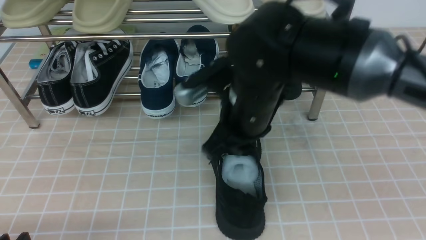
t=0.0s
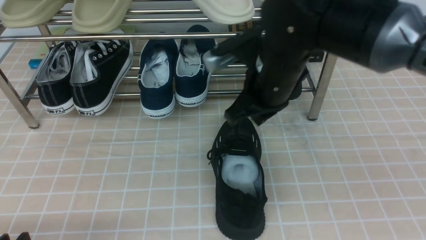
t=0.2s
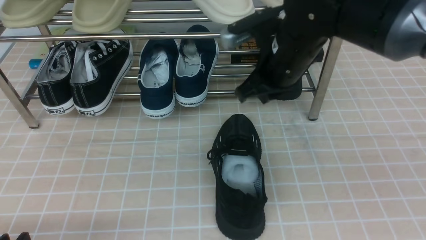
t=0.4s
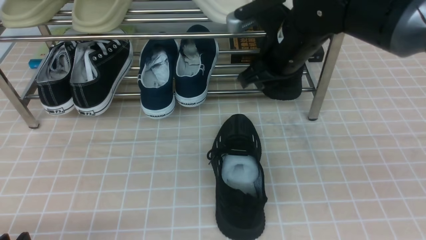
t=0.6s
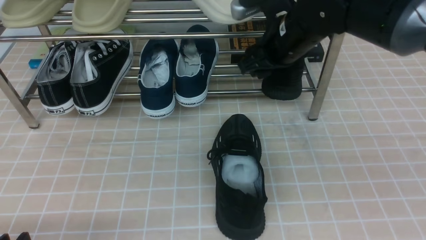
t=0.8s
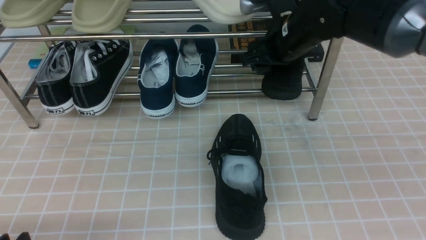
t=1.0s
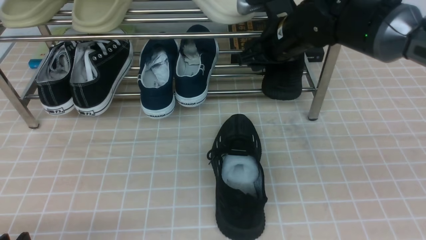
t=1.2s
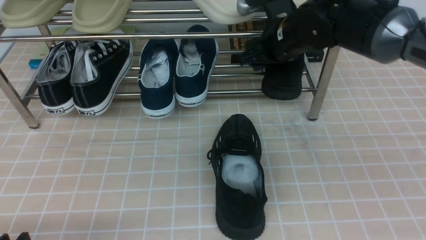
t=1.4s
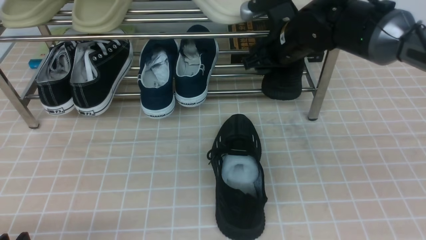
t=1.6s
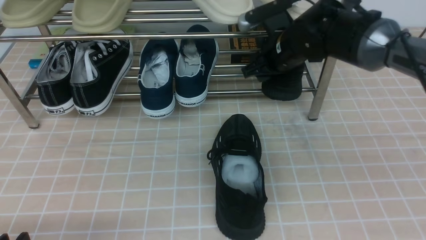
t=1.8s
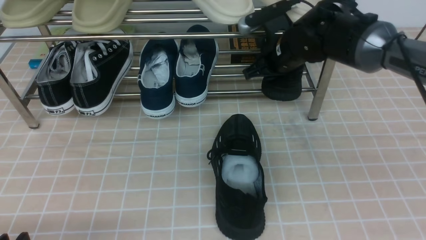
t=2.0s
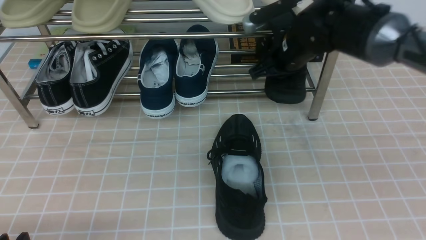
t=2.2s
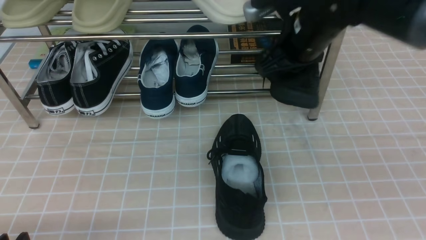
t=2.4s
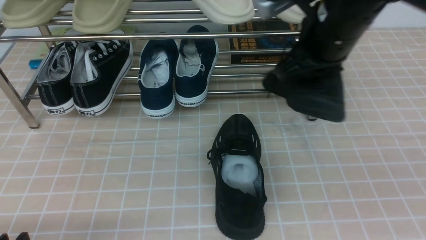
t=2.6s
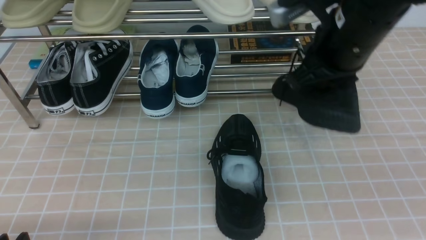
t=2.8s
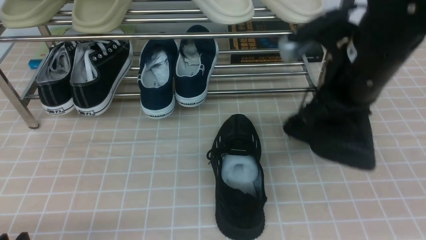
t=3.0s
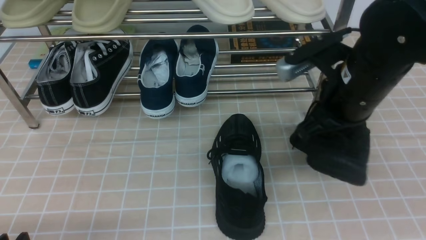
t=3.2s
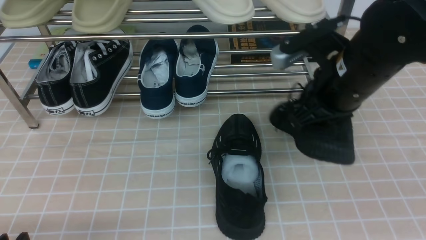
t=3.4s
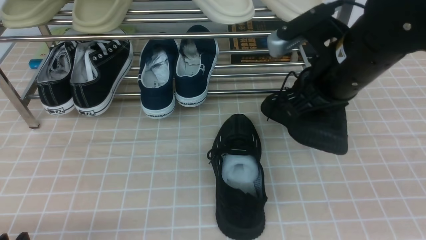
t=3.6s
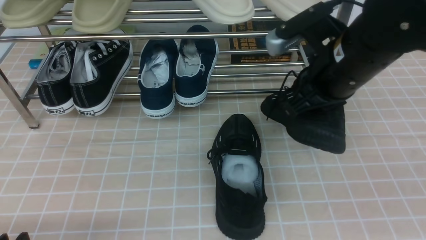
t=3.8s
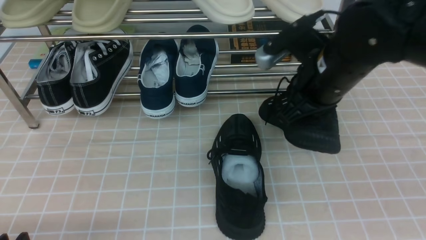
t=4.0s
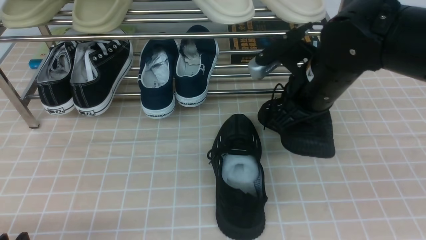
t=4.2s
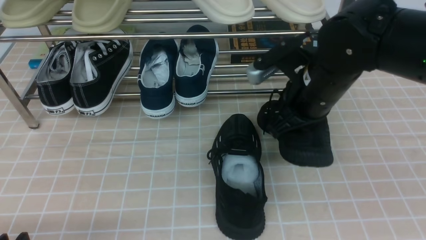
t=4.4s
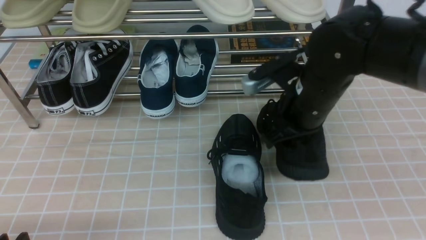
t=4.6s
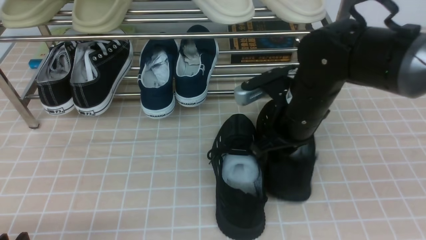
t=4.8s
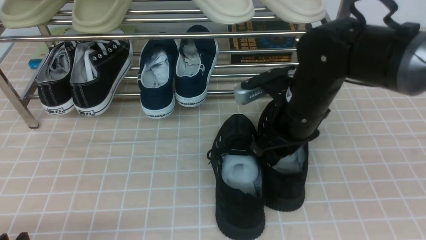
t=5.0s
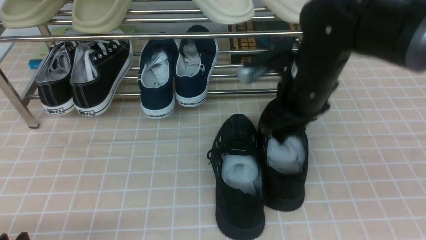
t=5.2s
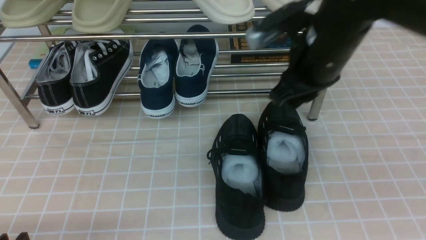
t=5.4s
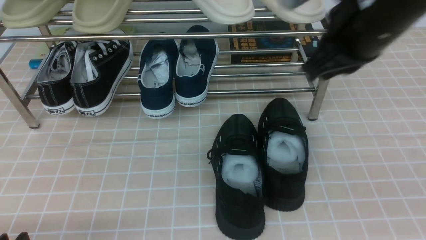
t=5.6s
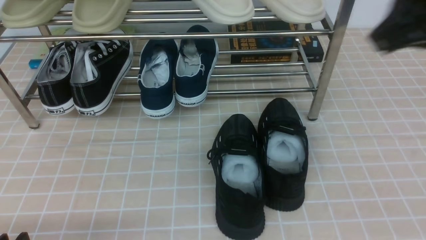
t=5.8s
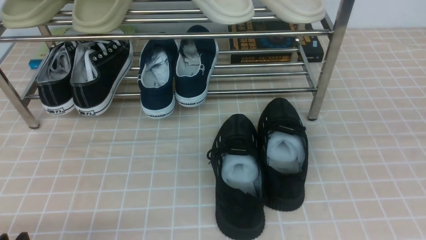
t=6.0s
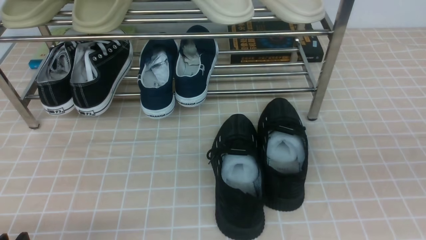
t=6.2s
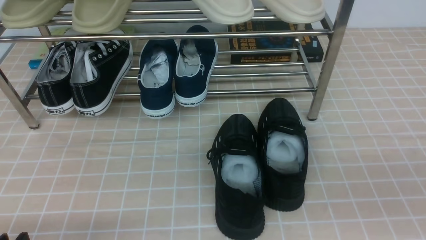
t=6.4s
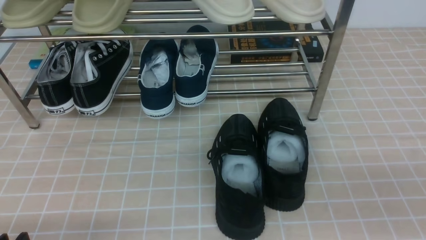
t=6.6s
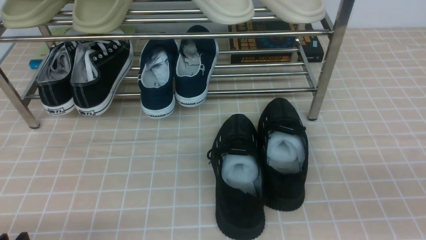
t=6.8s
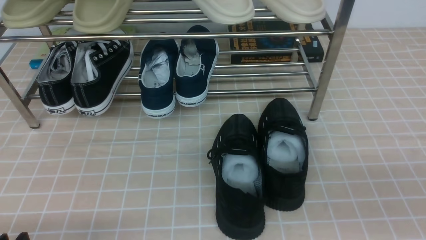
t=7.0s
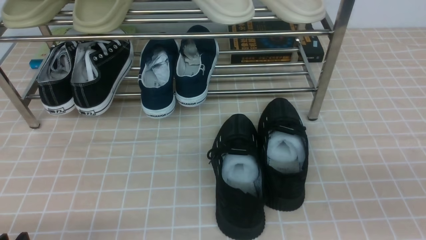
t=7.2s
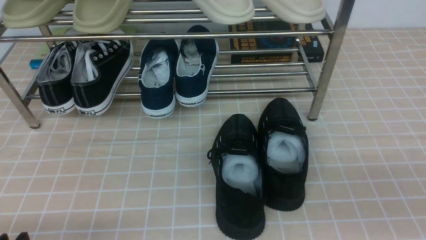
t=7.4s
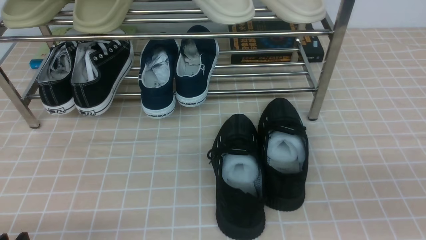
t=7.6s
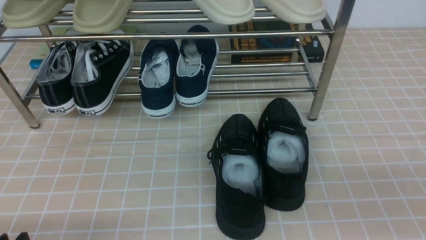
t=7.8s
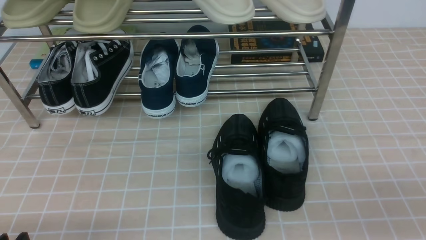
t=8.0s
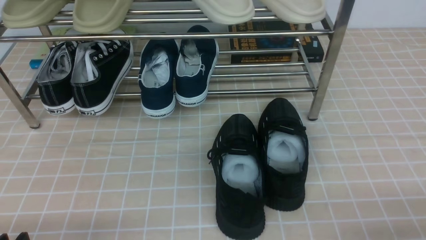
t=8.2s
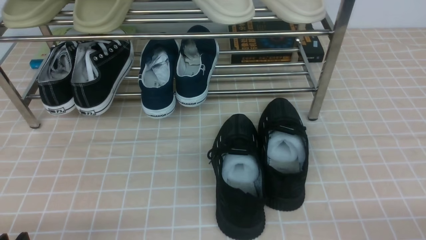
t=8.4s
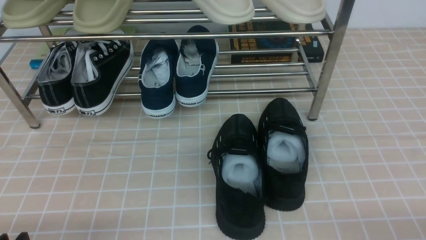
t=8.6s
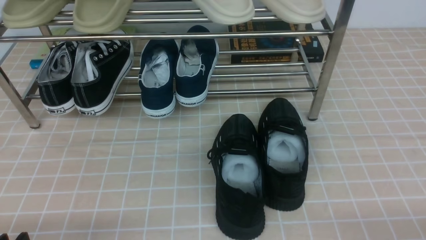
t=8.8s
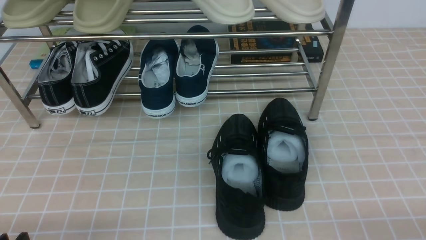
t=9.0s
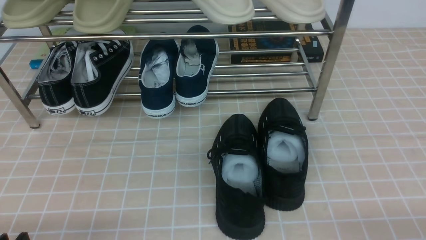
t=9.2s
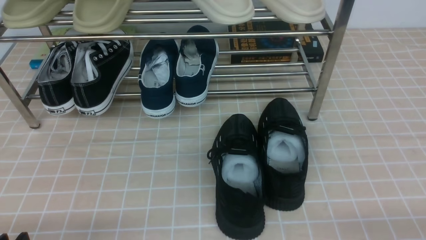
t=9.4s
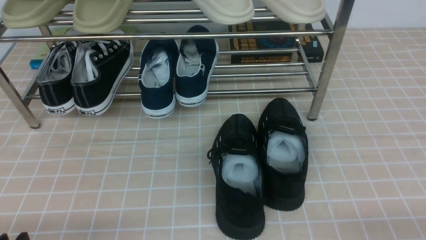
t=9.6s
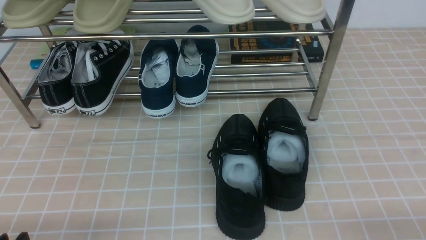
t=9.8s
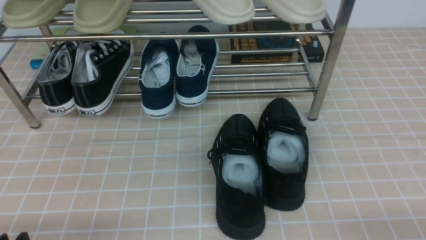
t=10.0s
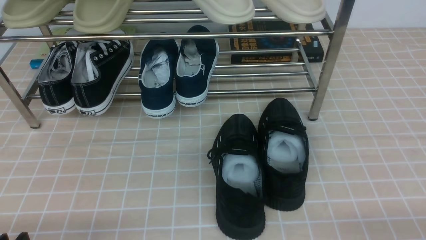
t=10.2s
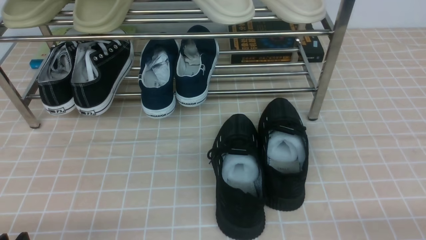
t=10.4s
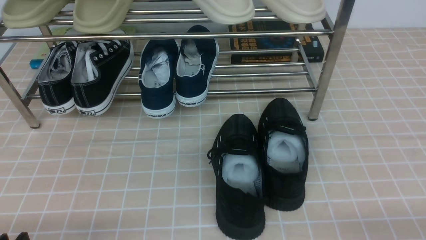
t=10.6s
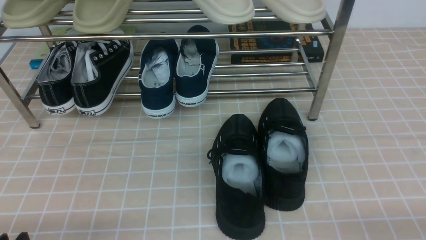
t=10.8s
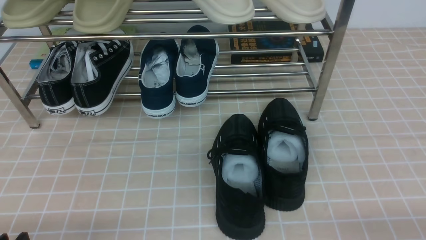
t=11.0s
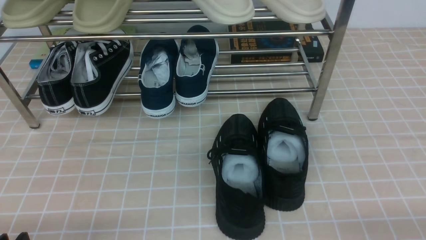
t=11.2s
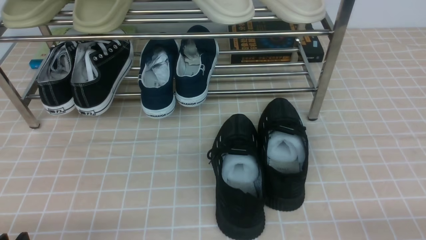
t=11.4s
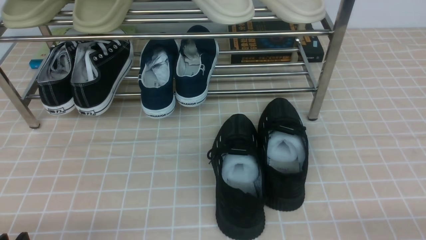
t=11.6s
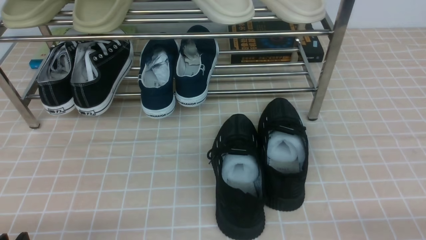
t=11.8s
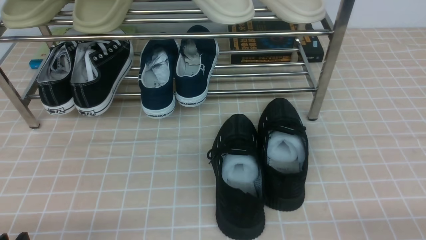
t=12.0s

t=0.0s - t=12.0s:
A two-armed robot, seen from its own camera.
Step, t=0.0s - t=1.8s: use the right arm to clamp a shoe on the right side of the shoe rack.
Step, t=2.0s - t=5.2s: use the right arm to take out the clamped shoe from the shoe rack and put it down.
t=0.0s - t=1.6s: The right gripper travels forward and to the right by approximately 15 cm, and opens its fingers.
t=1.6s - t=3.0s: The right gripper goes about 15 cm backward and upward, and closes.
t=3.0s - t=4.4s: The right gripper travels downward by some 5 cm.
t=4.4s - t=6.0s: The right gripper moves upward, backward and to the right, about 25 cm, and opens, then closes once more.
t=6.0s - t=7.6s: The right gripper moves downward and backward, roughly 20 cm.
t=7.6s - t=9.0s: The right gripper travels downward by approximately 15 cm.
t=10.4s - t=12.0s: Both grippers stay put.

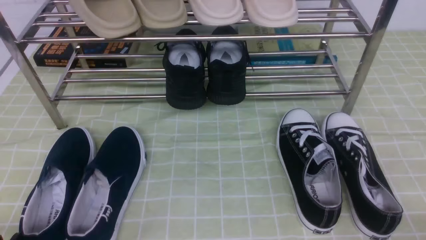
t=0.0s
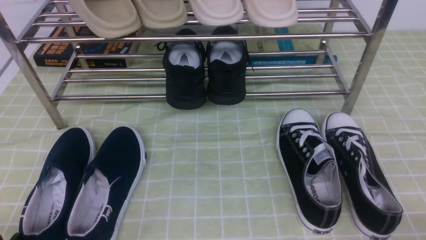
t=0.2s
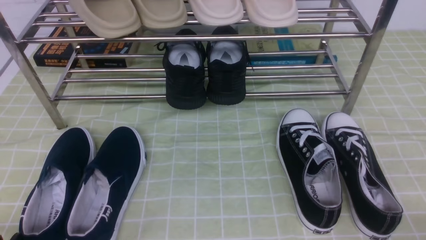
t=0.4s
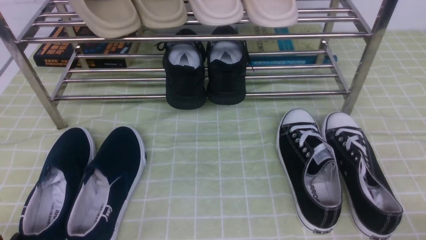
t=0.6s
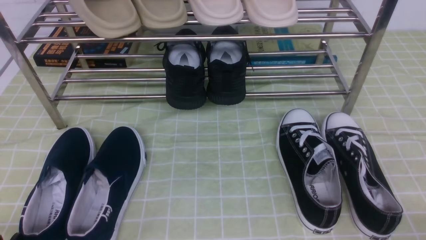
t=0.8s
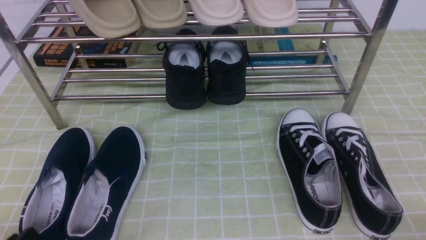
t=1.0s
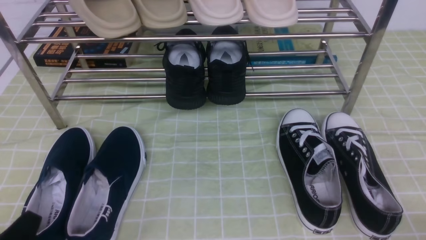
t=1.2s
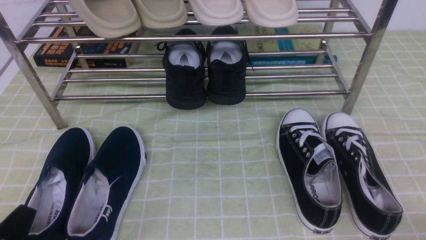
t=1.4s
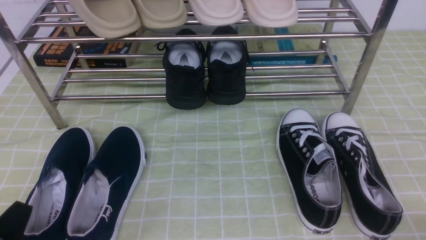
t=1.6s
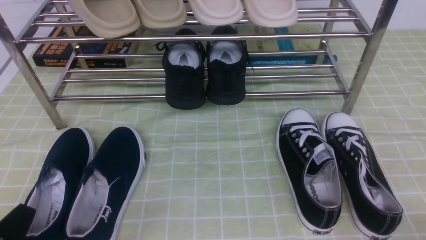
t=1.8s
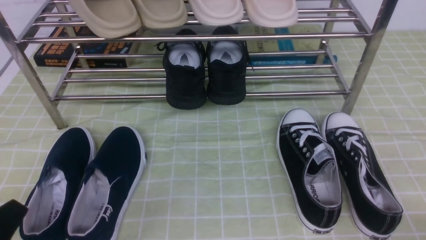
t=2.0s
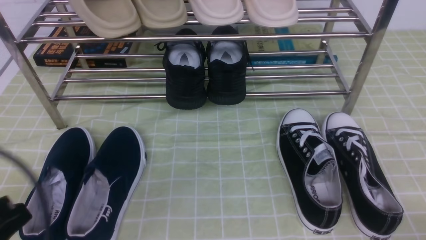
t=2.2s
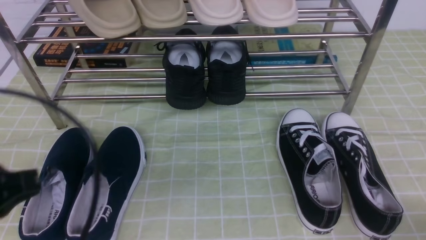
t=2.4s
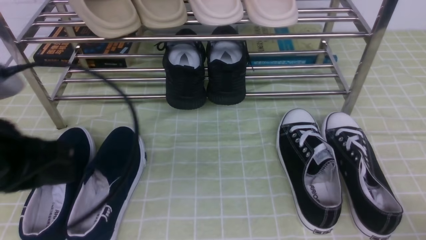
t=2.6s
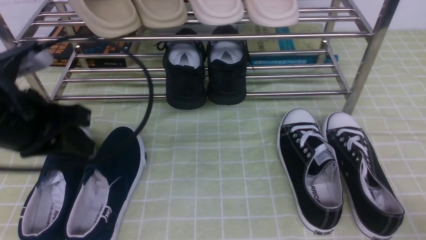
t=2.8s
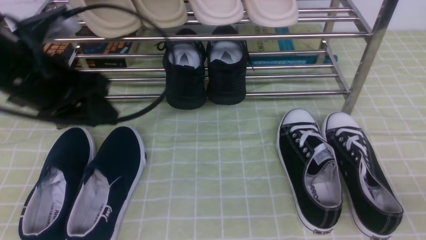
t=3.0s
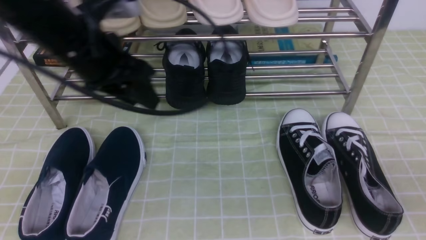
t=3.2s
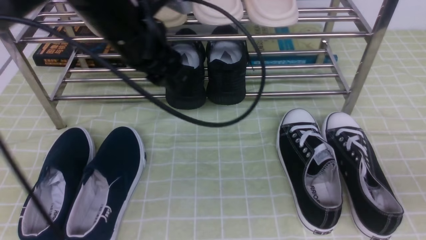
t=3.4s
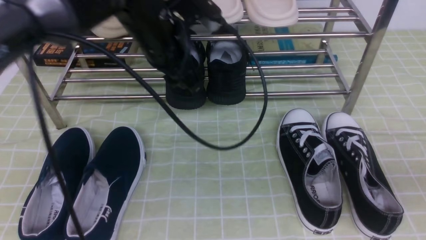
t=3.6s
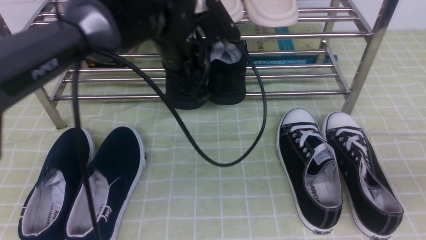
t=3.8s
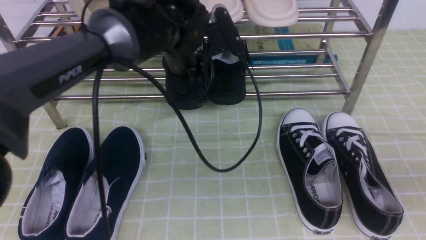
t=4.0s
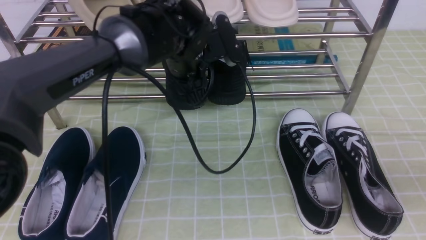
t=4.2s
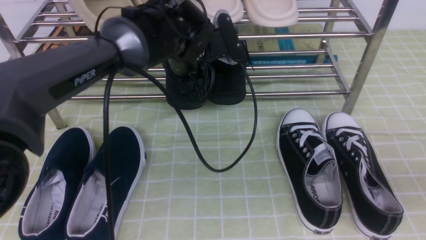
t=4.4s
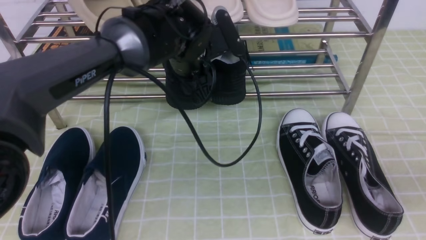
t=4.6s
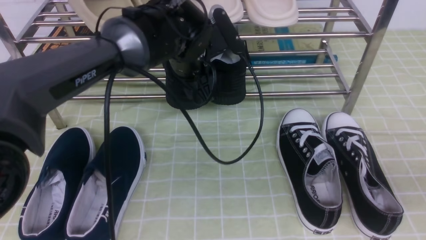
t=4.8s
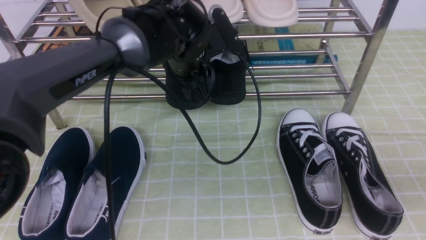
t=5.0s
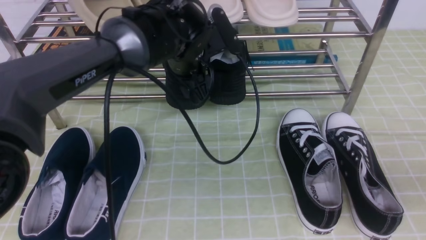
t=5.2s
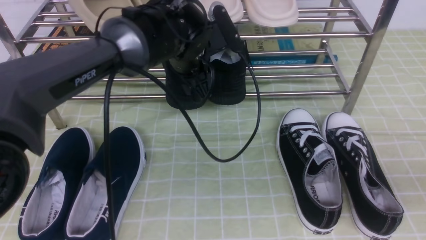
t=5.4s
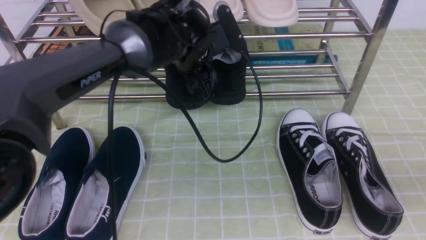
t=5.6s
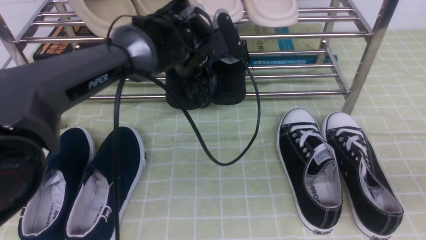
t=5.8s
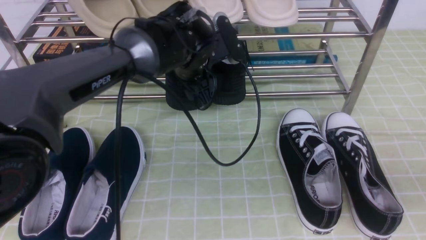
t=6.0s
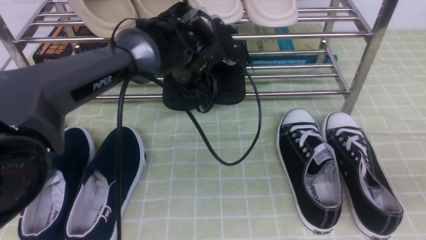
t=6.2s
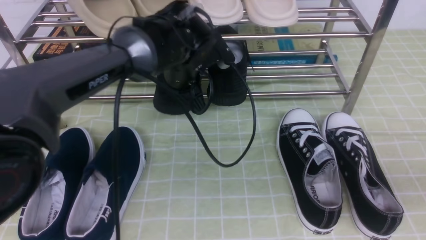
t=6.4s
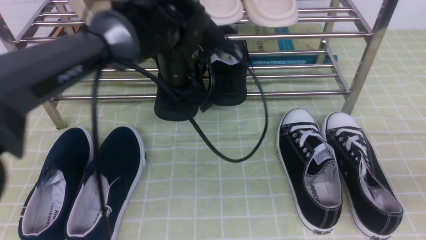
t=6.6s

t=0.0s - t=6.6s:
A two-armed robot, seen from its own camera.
Step, t=0.0s - t=6.4s: use the left arm to clamp a shoe in the middle of the shoe rack.
t=1.6s - t=3.2s: The right gripper travels upward by approximately 15 cm. The left gripper goes roughly 30 cm forward, upward and to the right, and closes, then reopens.
t=3.2s - t=5.0s: The left gripper shifts some 15 cm to the right, forward and downward, and opens up.
t=5.0s - t=6.6s: The left gripper closes up.
